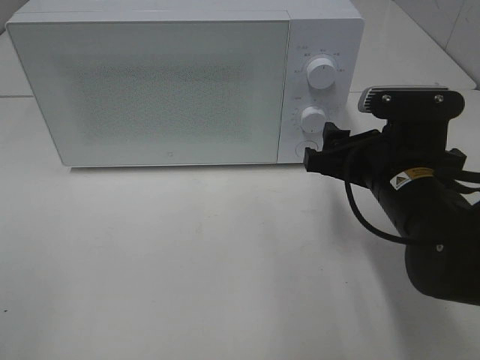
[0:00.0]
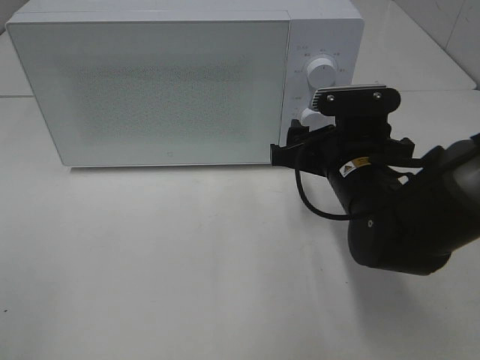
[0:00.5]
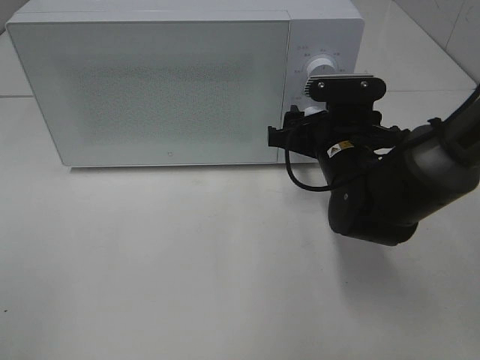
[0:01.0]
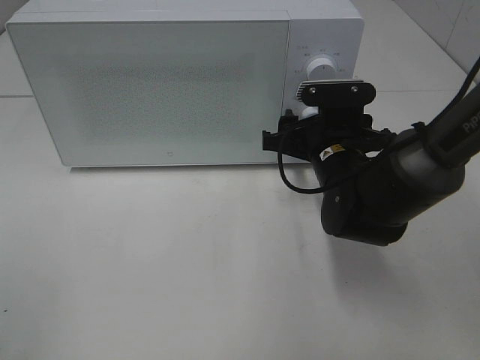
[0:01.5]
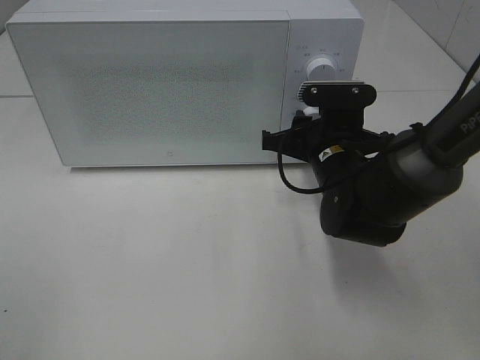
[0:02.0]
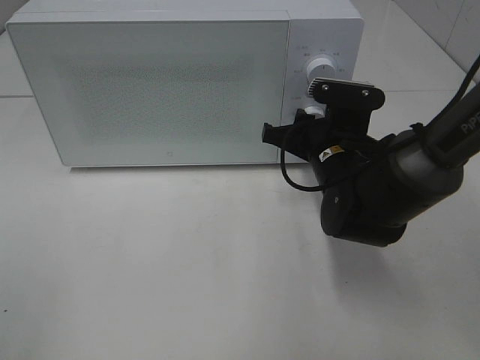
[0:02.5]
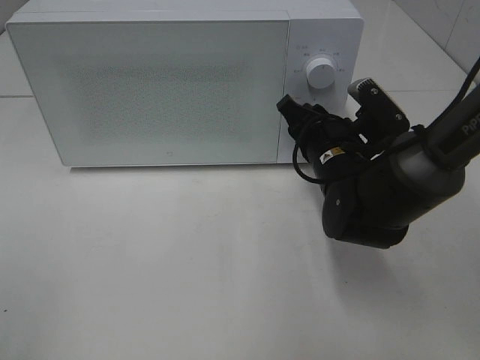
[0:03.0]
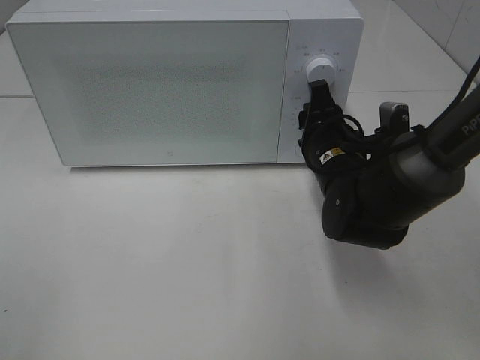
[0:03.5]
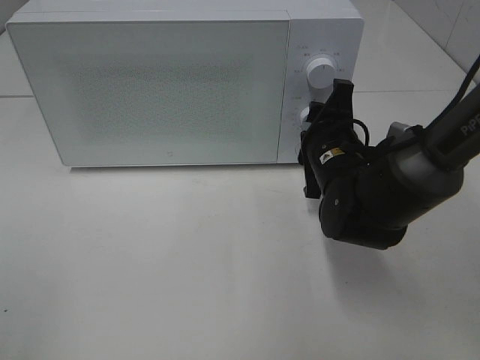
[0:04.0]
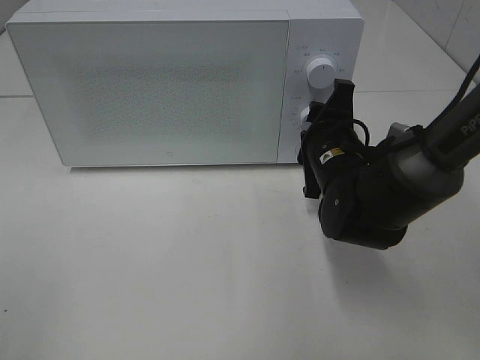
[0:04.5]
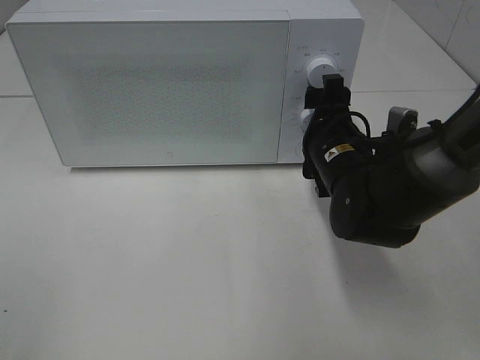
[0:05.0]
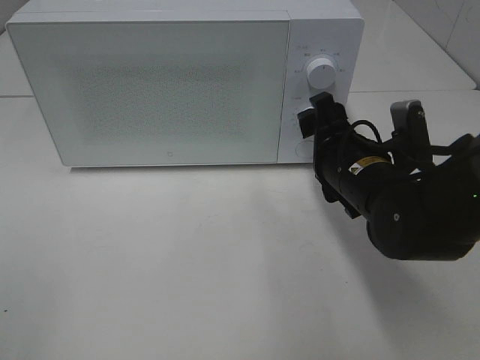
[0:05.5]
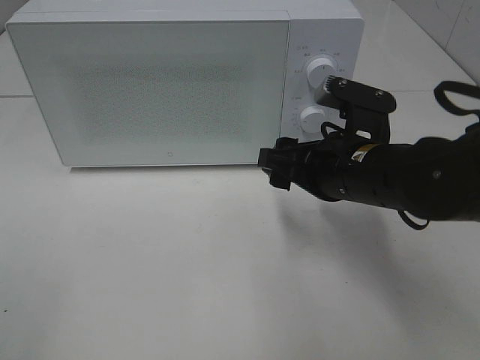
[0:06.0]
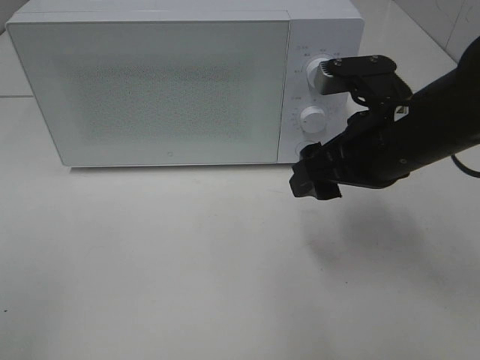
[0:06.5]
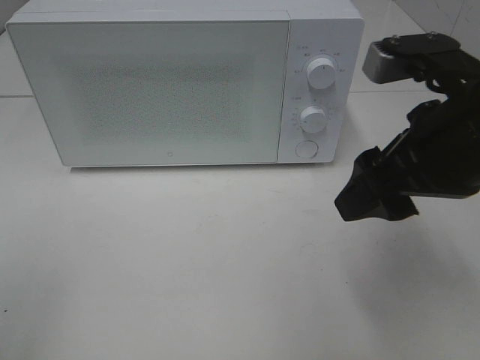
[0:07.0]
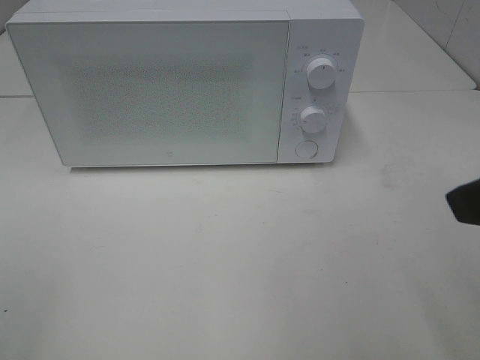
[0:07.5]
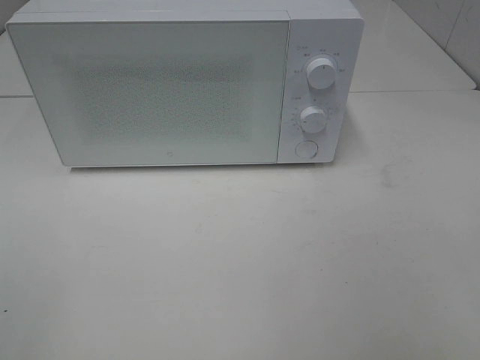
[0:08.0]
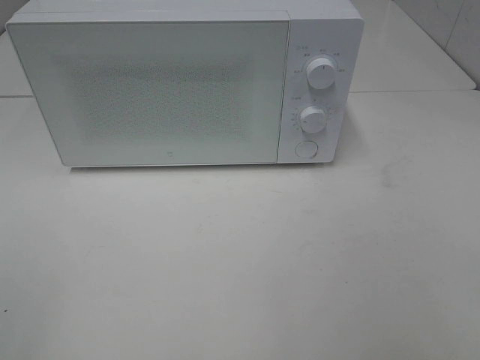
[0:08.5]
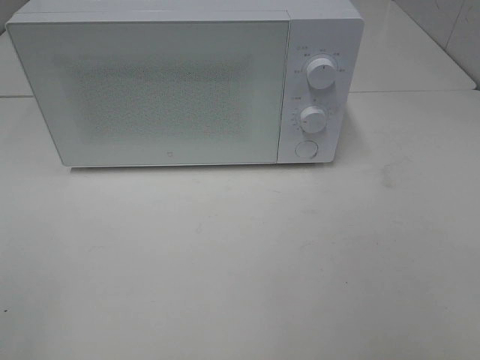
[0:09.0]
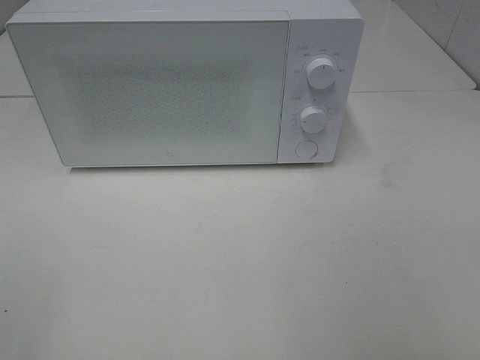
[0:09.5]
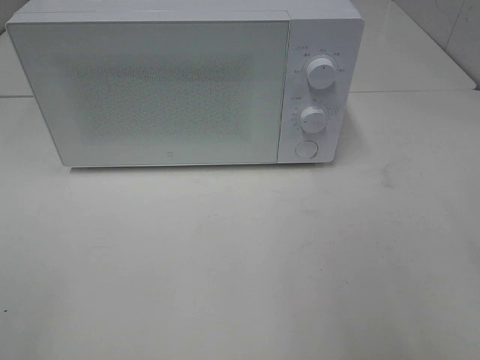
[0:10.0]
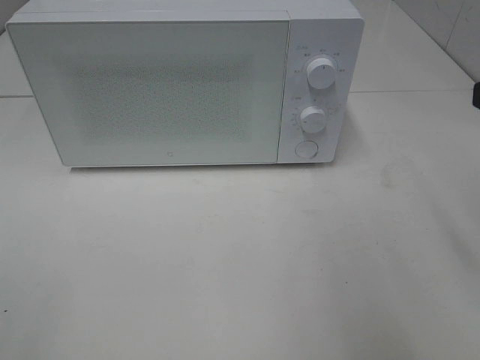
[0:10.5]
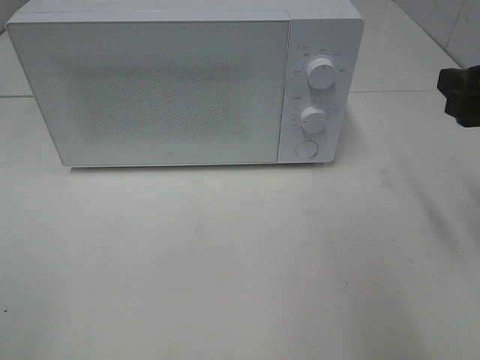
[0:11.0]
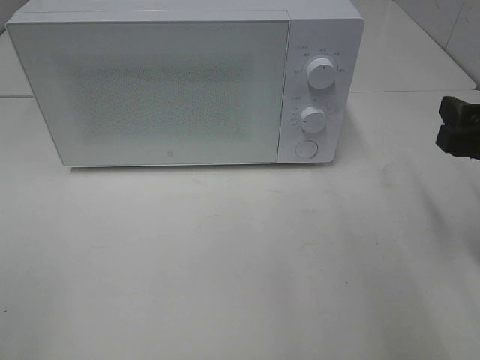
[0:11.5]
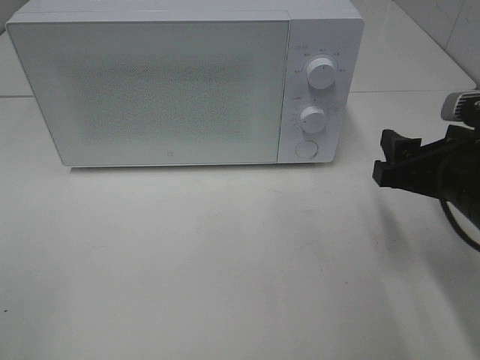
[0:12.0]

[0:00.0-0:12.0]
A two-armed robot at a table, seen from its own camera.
Task of the whole recording: Heat the burger.
Step, 0:00.0 to 0:05.0: Right hand: twist timer button.
0:00.0 to 0:02.0: The right gripper heads forward, covering about 10 cm, and closes.
0:04.0 to 0:06.0: The right gripper shifts approximately 5 cm backward, and opens.
0:06.0 to 0:08.0: The right gripper heads backward, to the right and upward, covering roughly 30 cm.
0:10.0 to 0:12.0: The right gripper goes approximately 20 cm downward and forward.

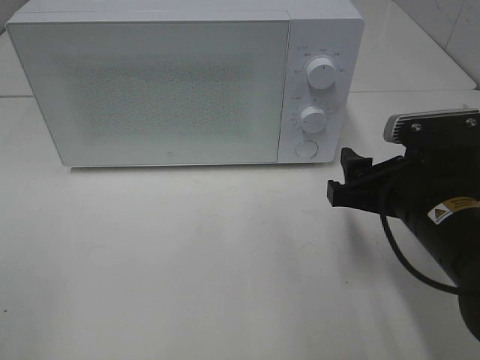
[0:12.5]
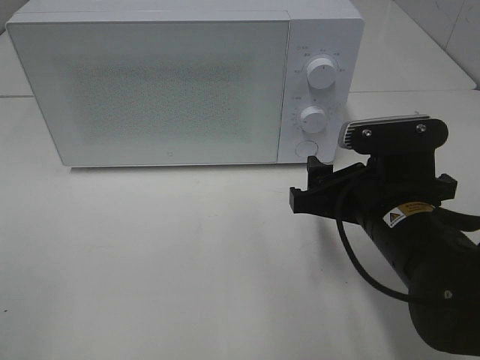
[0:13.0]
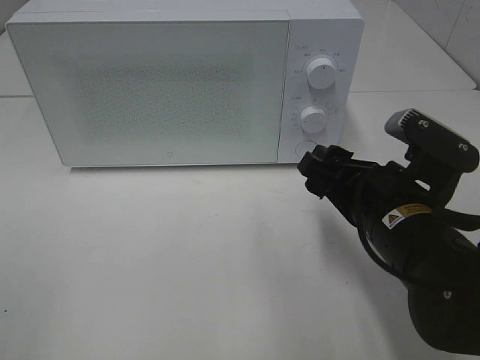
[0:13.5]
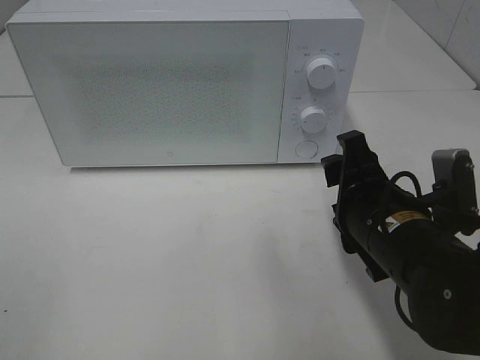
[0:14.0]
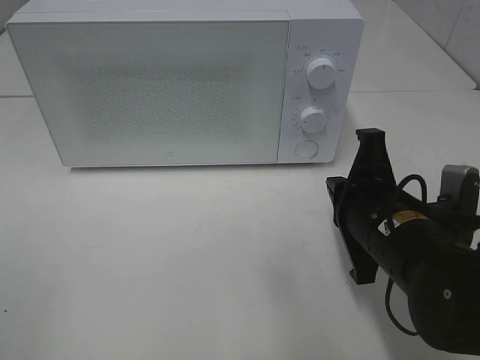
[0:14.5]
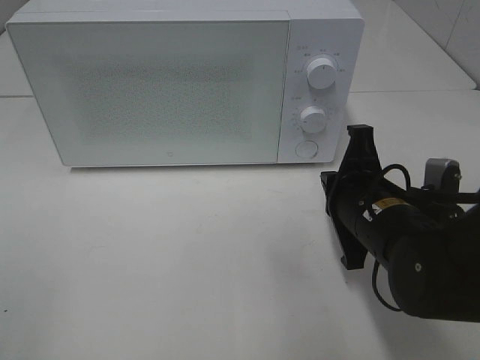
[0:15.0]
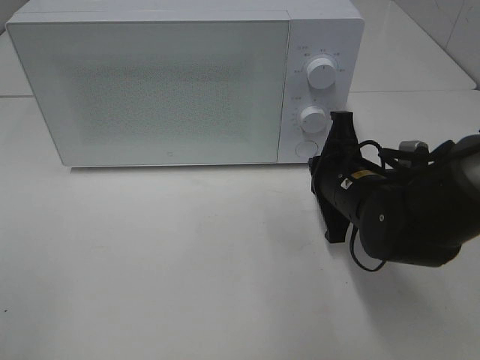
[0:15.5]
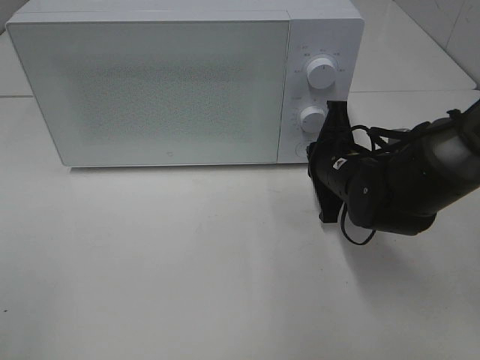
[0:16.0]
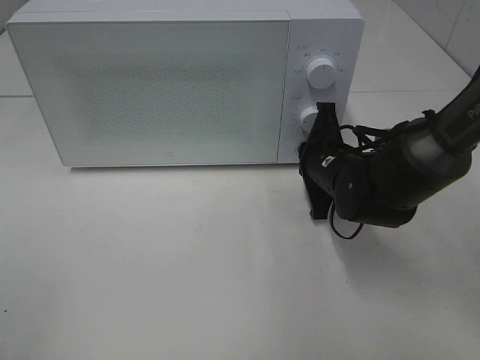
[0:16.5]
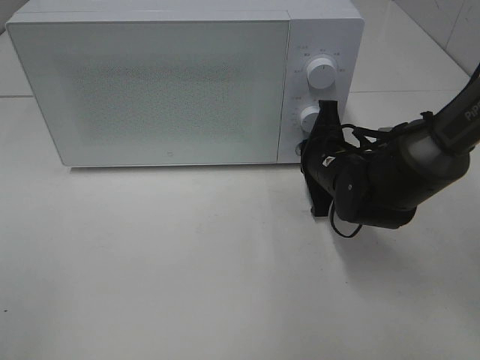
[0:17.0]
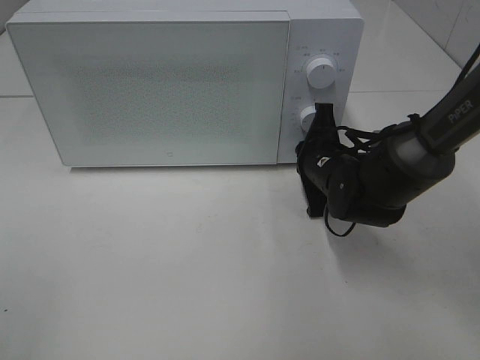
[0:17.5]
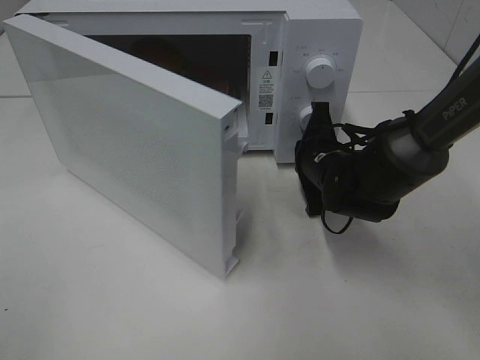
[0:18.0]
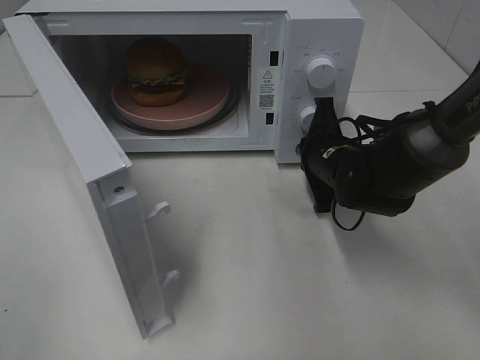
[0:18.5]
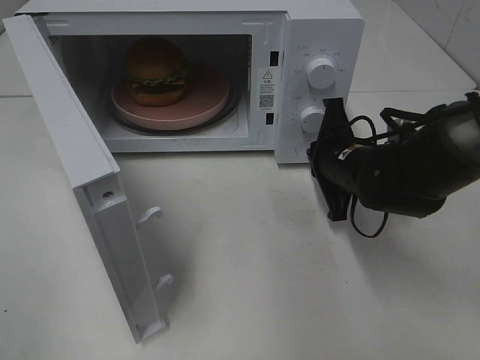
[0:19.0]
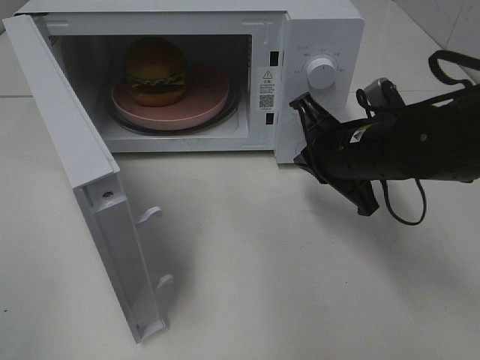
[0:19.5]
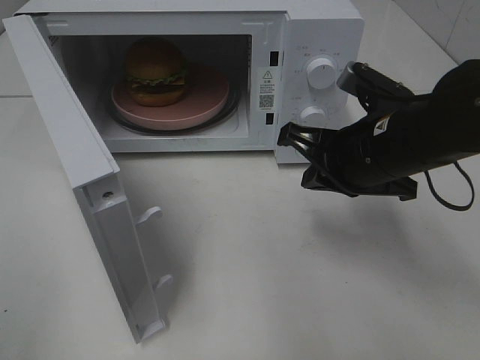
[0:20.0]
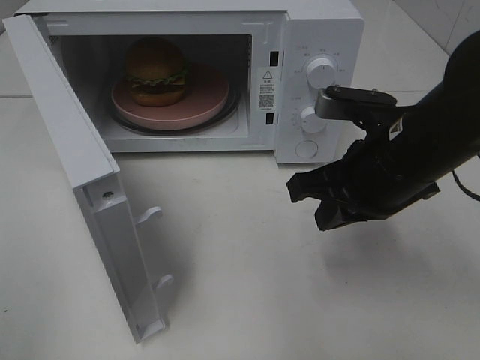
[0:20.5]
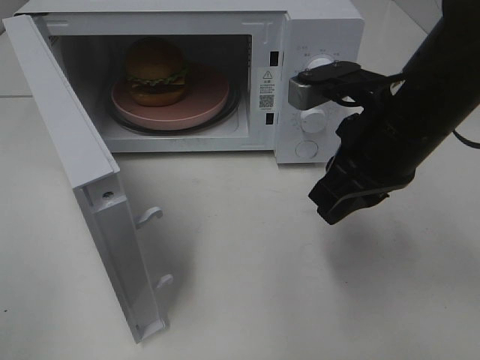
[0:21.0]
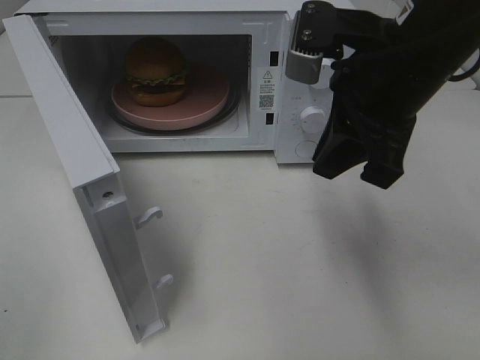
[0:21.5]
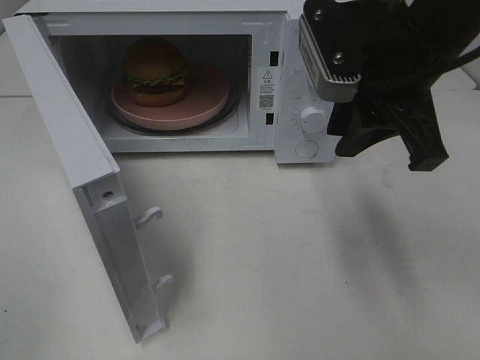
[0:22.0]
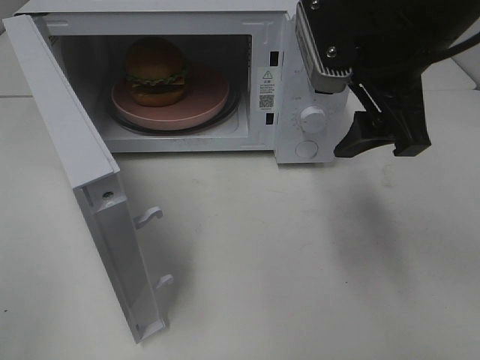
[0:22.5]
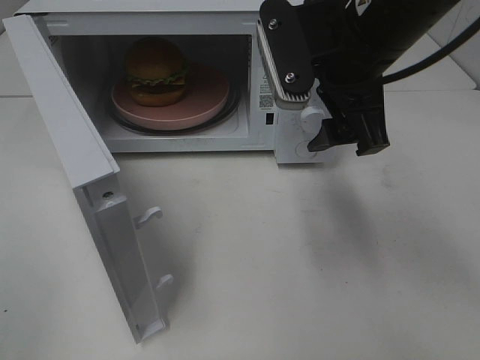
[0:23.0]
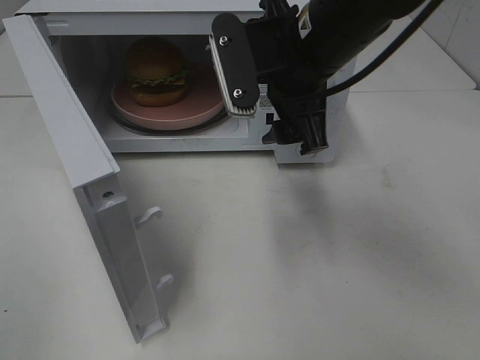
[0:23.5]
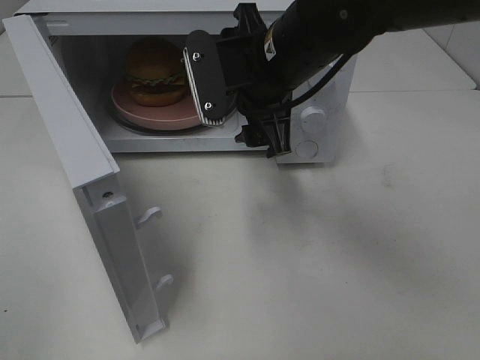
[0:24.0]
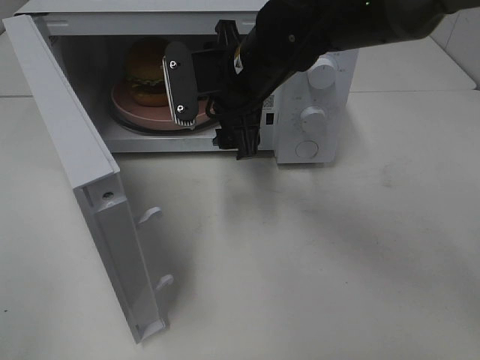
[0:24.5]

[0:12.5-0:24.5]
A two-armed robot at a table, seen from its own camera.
Task of the whole recording: Heat the burger.
Step, 0:12.5 to 0:19.0: Right hand: press the switch.
0:12.5 to 0:14.5: The right gripper closes up.
0:14.5 to 0:16.5: The right gripper is displaced forward by some 15 cm.
0:18.5 to 0:20.5: The right gripper is displaced backward and upward by some 15 cm.
0:20.5 to 0:22.5: The right gripper shifts some 10 cm upward, and opens up.
0:22.5 to 0:24.5: The right gripper is displaced to the left, downward and forward by some 15 cm.

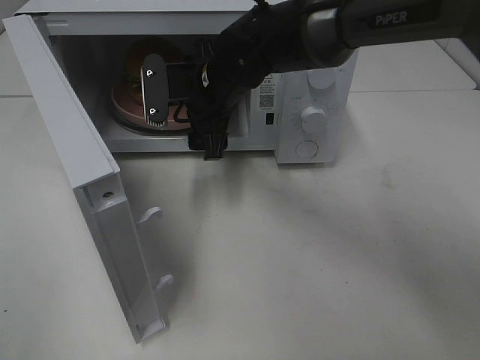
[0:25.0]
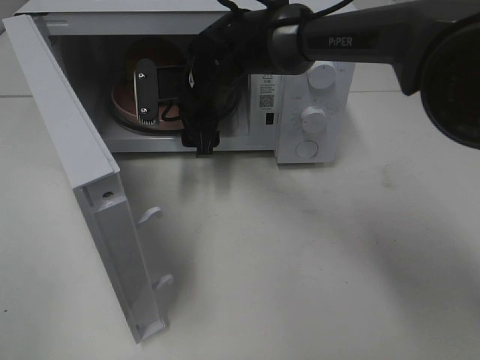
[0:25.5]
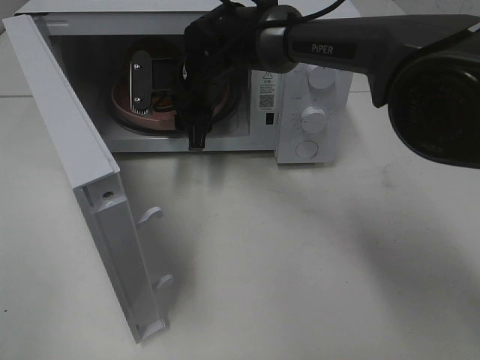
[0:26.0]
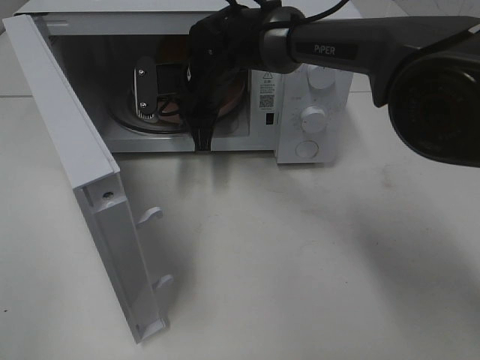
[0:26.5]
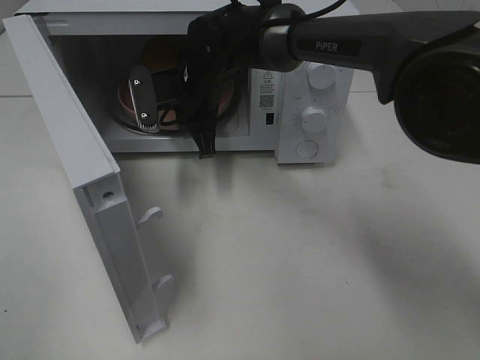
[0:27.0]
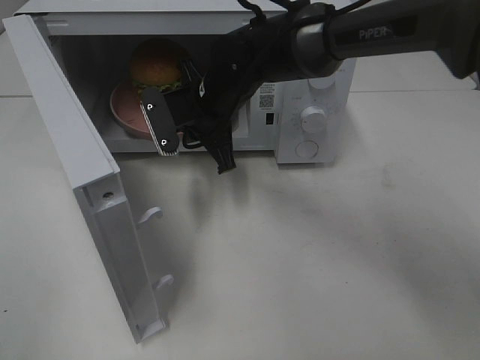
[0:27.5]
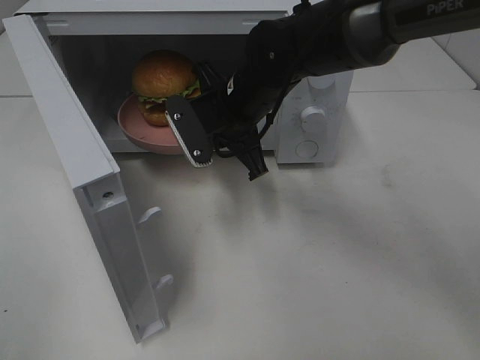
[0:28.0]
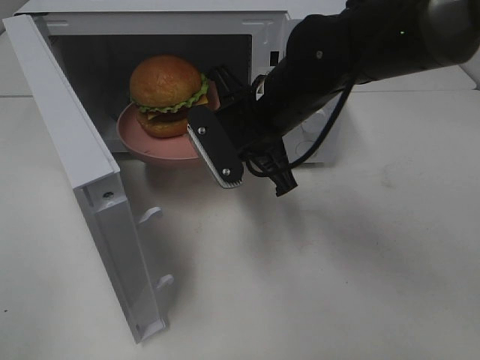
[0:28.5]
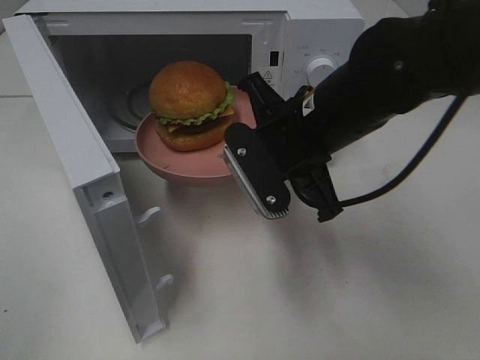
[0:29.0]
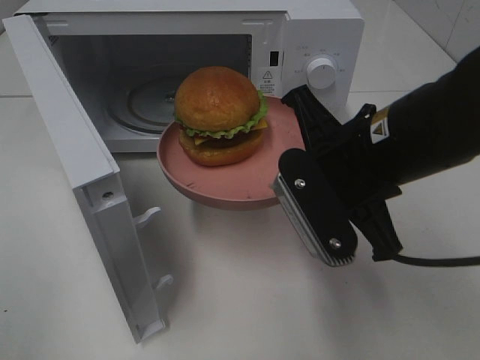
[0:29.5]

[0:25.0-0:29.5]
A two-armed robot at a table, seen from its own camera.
Task of the whole recording: Heat the burger.
0:25.0 to 0:27.0: The right gripper closes.
0:27.0 to 0:29.5: The right gripper heads backward and to the right, covering about 25 cm.
